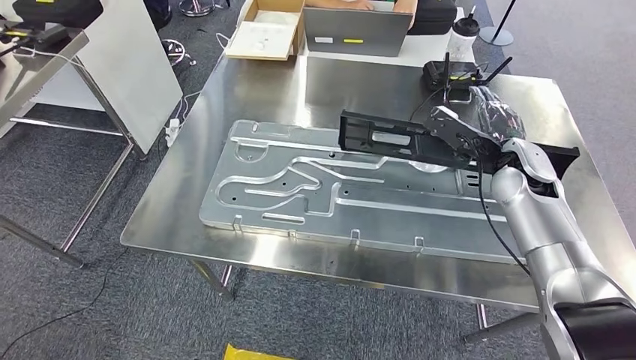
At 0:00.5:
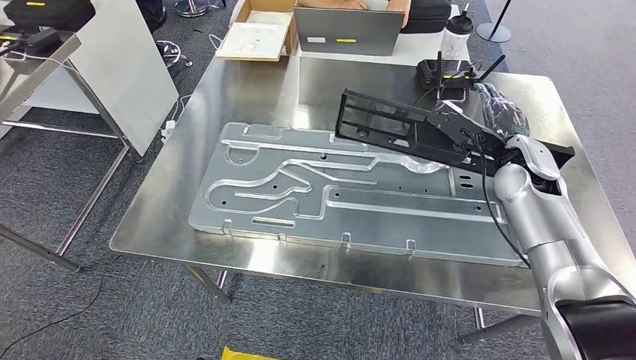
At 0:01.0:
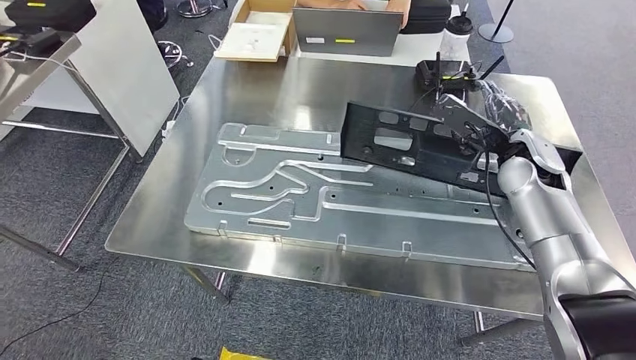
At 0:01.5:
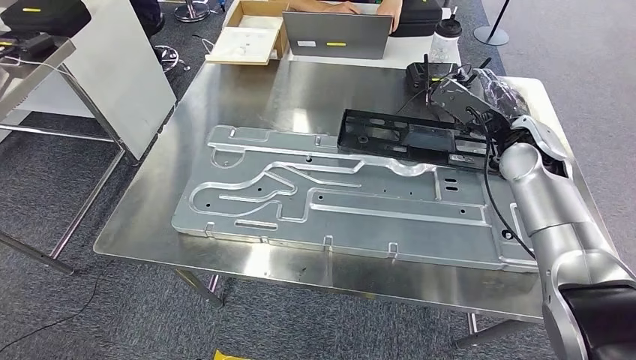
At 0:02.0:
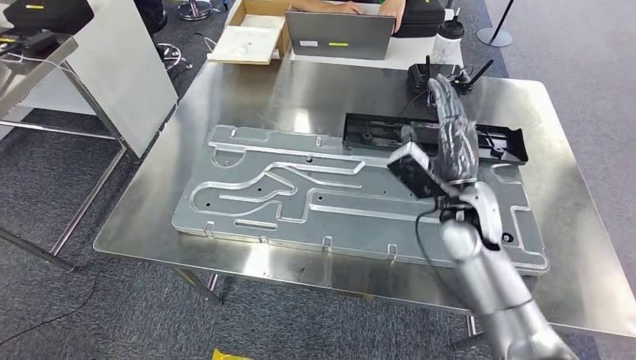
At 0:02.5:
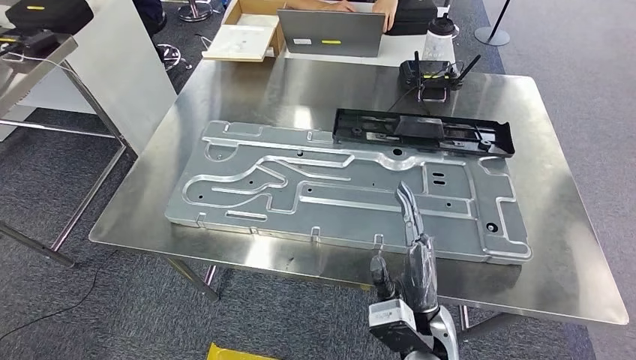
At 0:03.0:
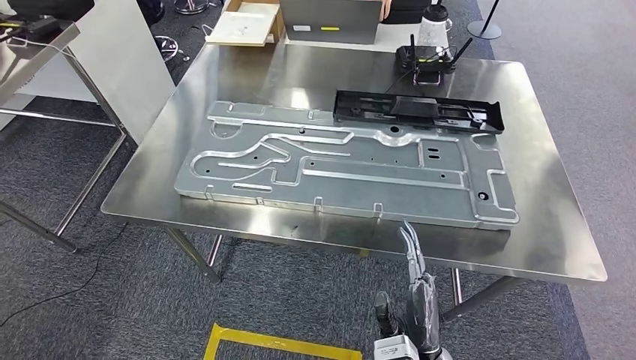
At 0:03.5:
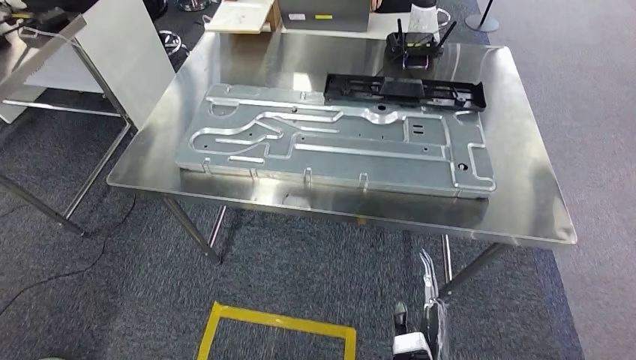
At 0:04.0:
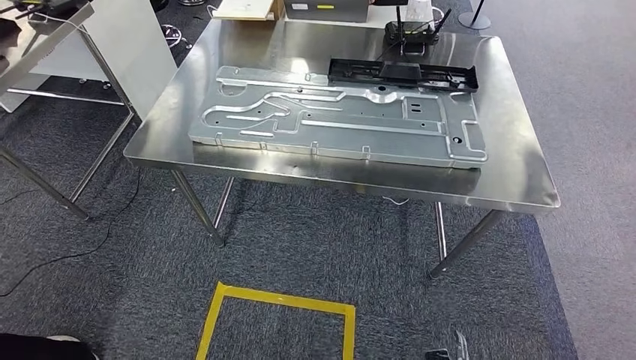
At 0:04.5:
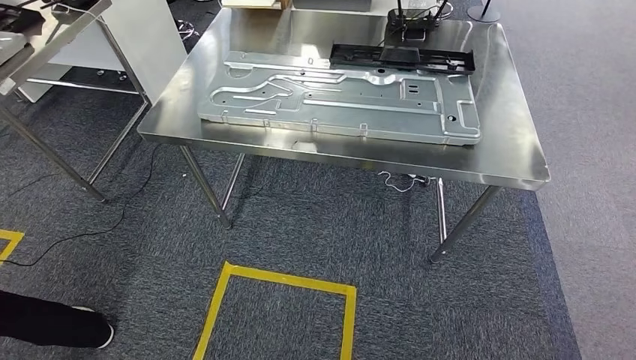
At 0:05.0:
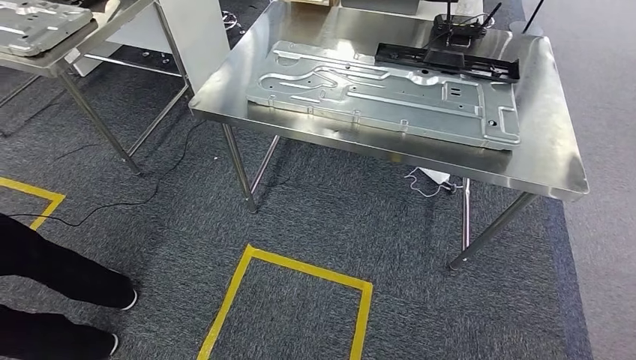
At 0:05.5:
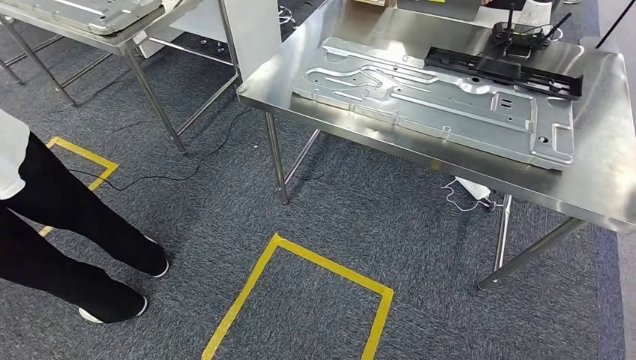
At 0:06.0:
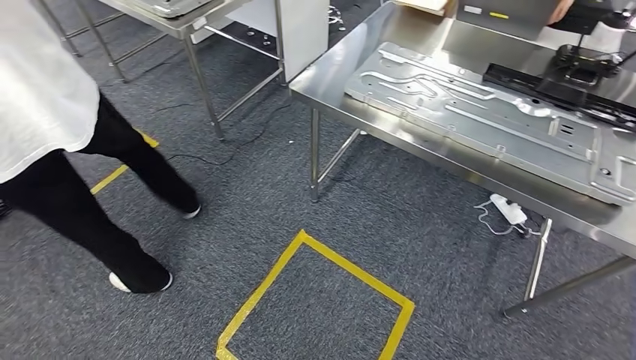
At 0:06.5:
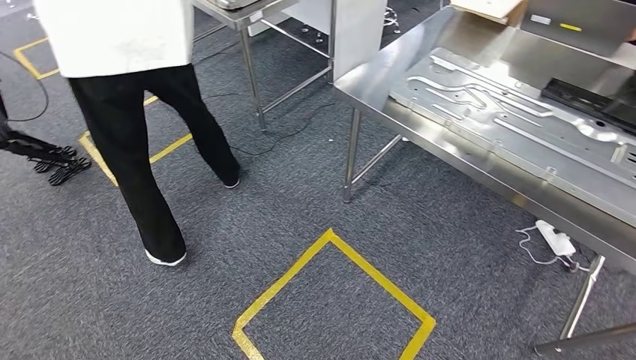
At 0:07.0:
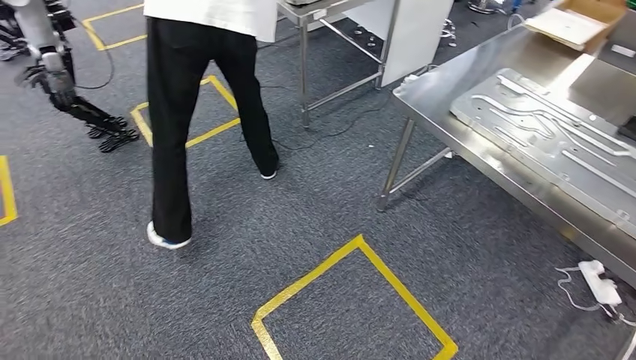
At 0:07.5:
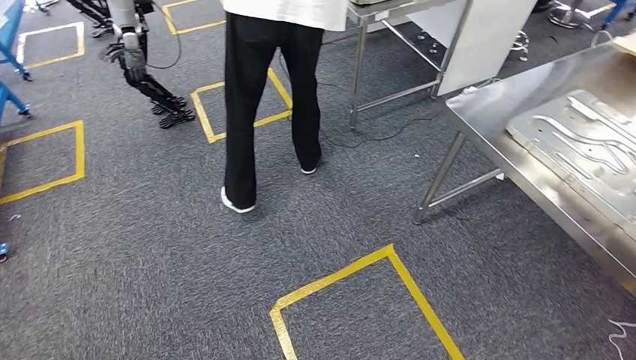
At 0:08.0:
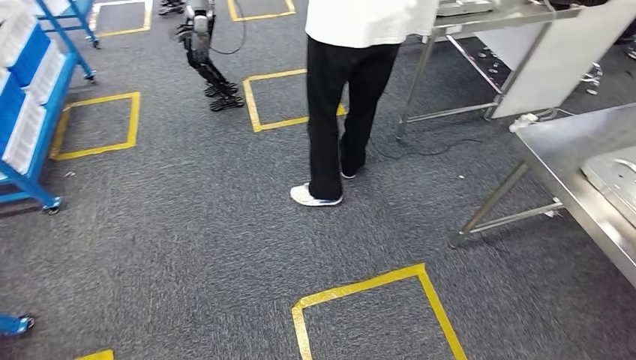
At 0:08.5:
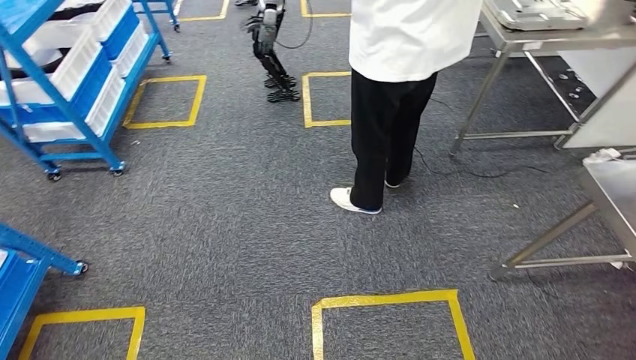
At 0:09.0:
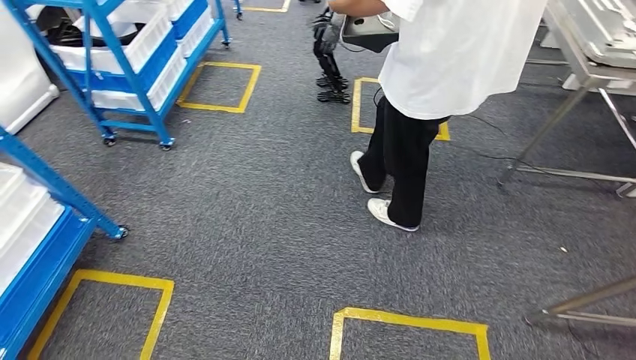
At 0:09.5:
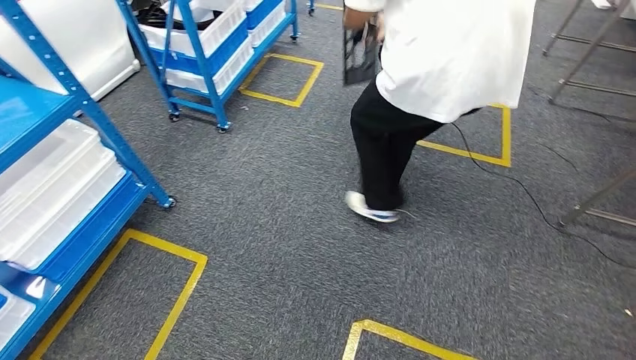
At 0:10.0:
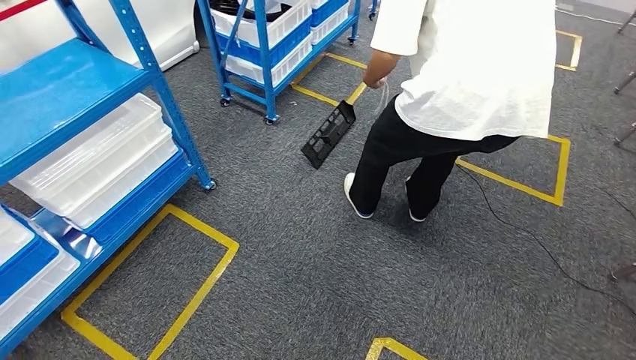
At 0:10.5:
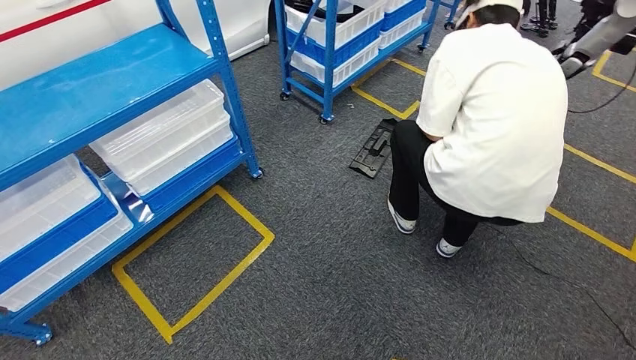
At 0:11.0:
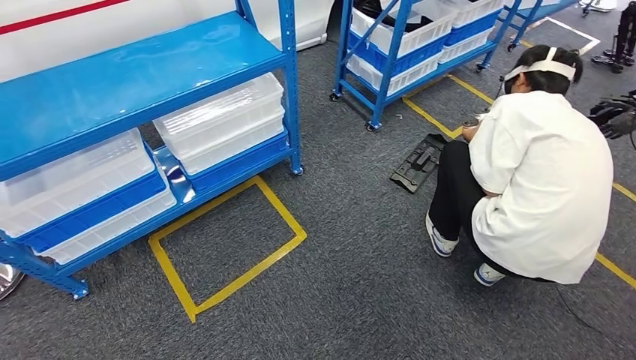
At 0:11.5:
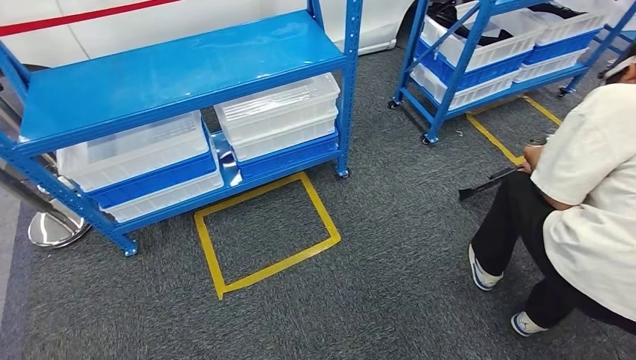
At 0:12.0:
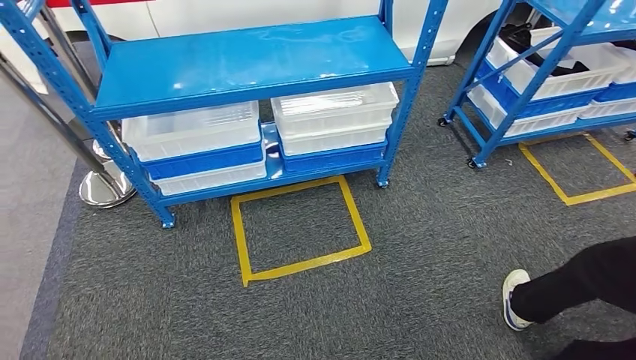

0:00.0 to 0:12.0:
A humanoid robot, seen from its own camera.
Step, 0:00.0 to 0:04.0: Insert the large material into the corresponding slot on the workbench.

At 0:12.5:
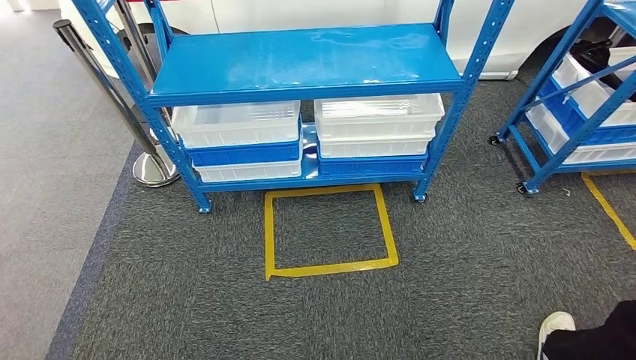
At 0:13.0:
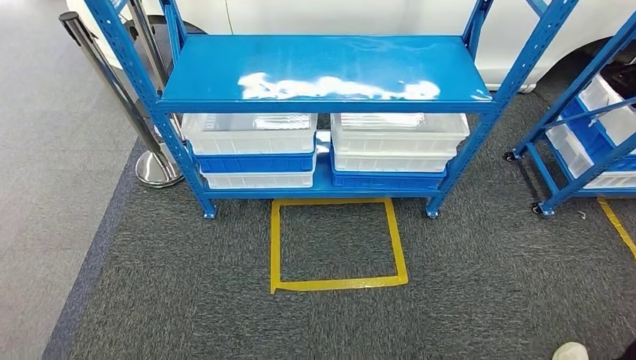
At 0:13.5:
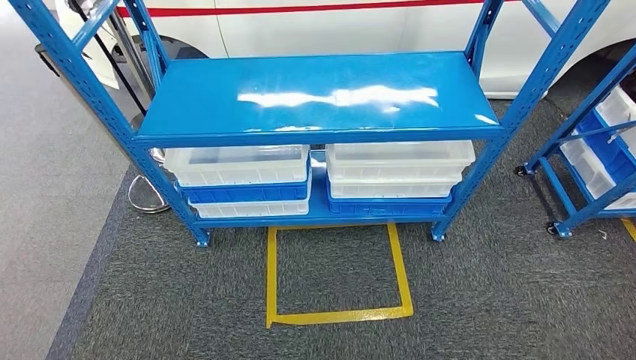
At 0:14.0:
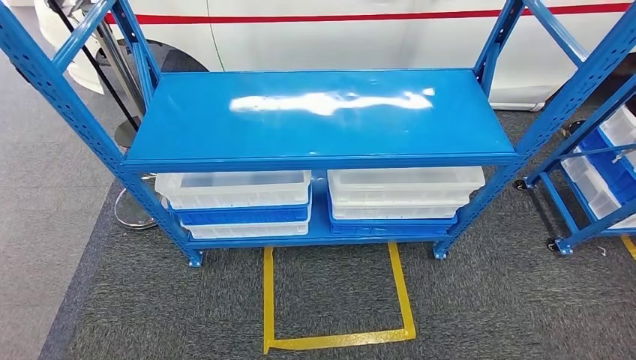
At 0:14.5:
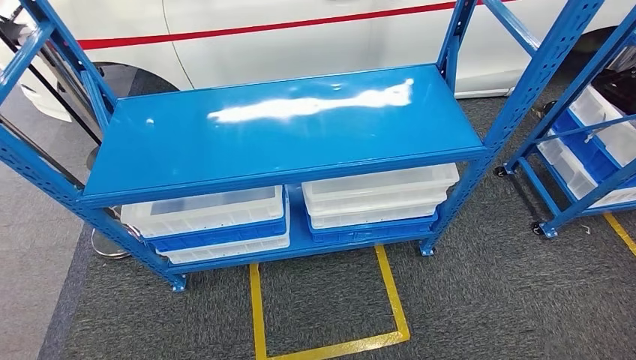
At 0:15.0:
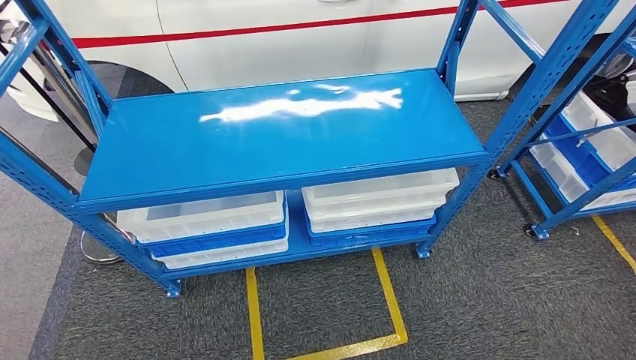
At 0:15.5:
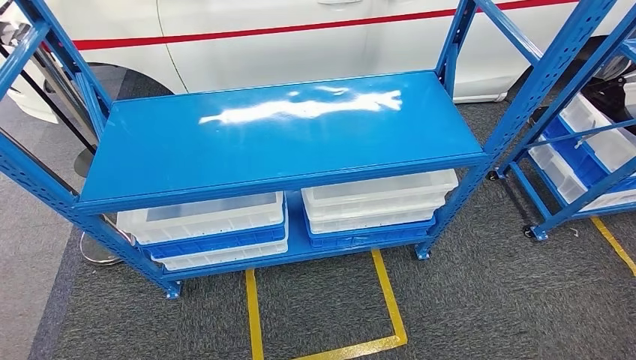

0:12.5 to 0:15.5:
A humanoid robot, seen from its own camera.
Step, 0:12.5 to 0:15.5: Move to the initial position of the shelf.

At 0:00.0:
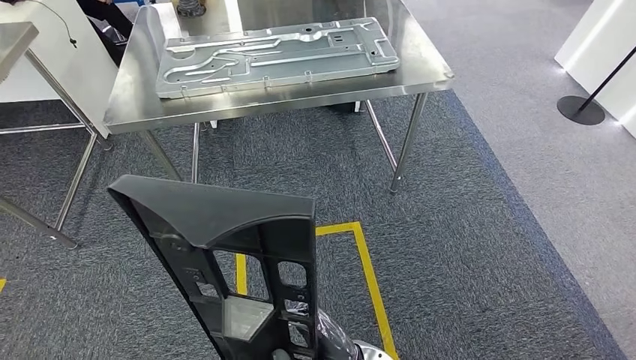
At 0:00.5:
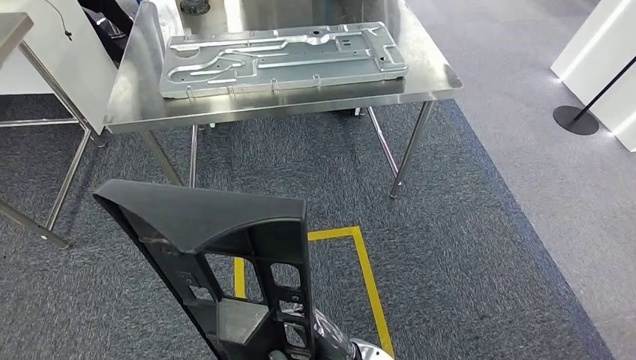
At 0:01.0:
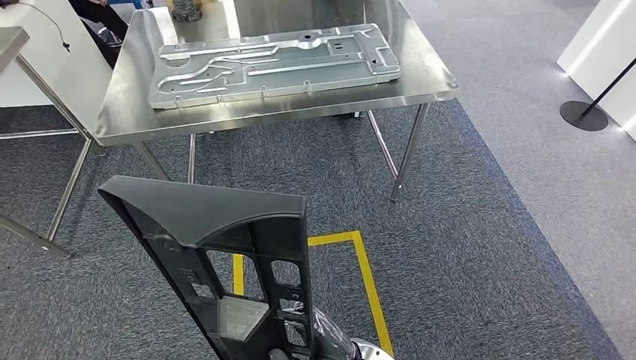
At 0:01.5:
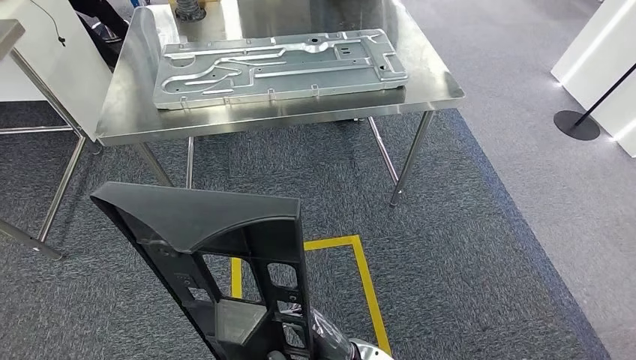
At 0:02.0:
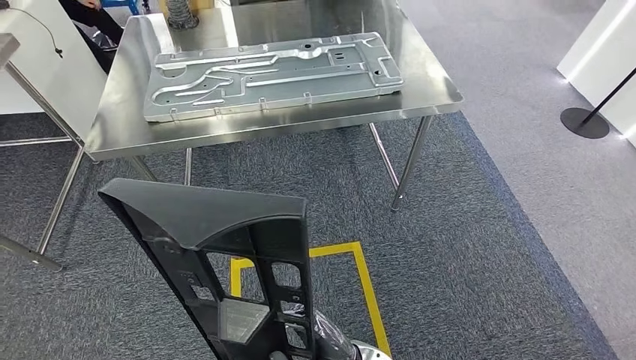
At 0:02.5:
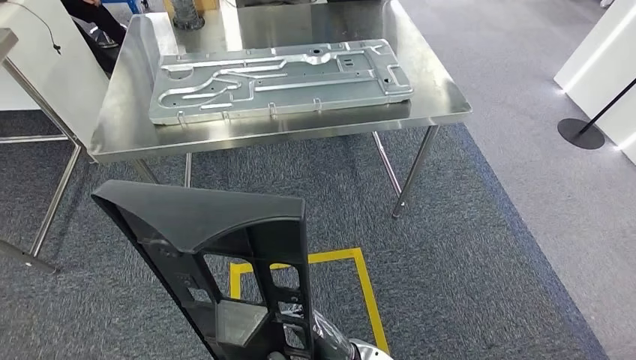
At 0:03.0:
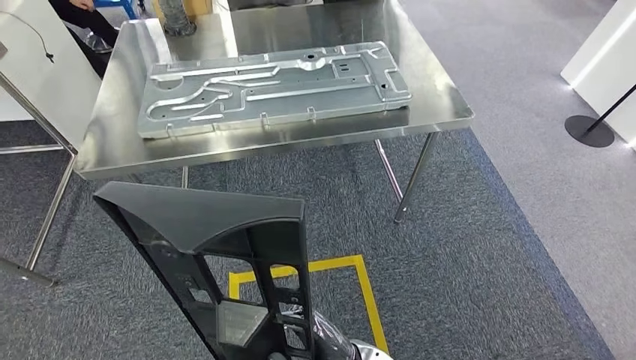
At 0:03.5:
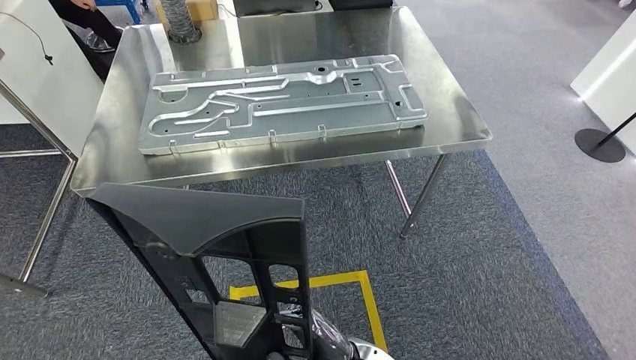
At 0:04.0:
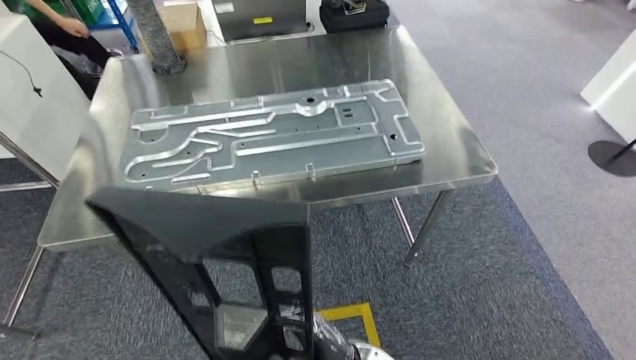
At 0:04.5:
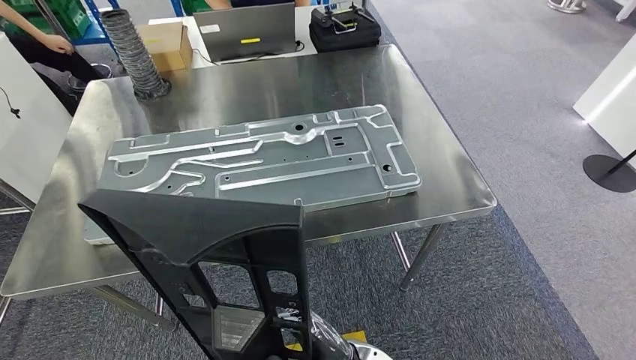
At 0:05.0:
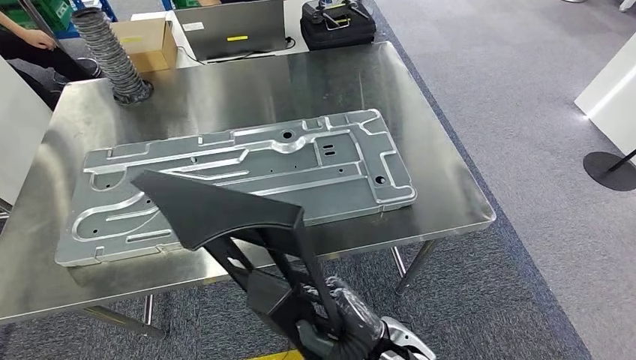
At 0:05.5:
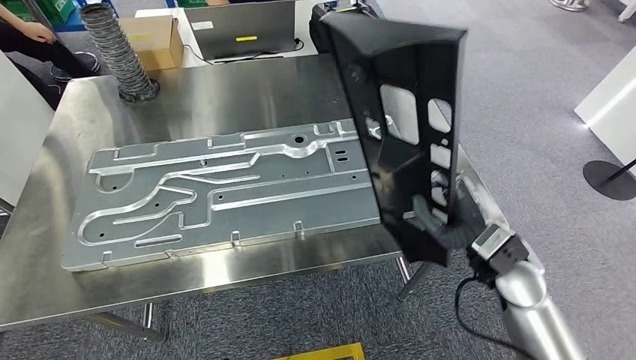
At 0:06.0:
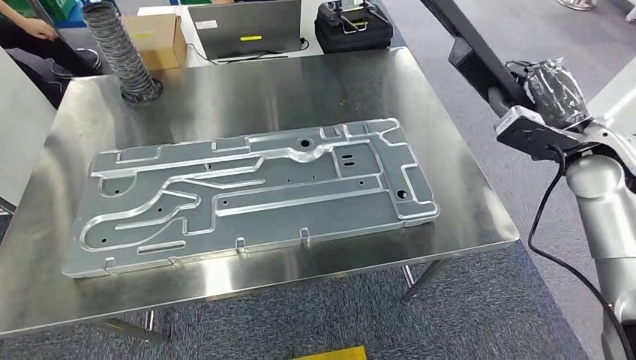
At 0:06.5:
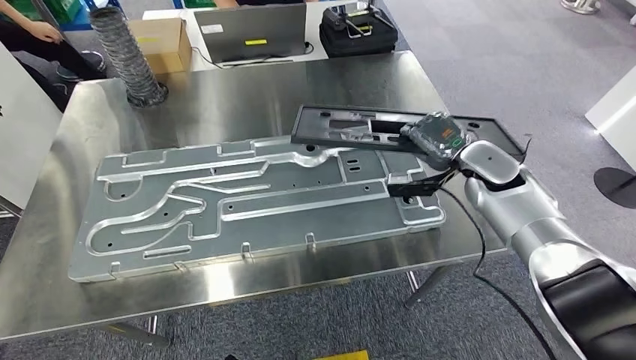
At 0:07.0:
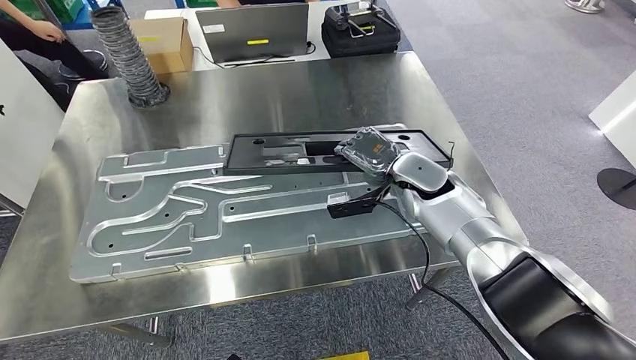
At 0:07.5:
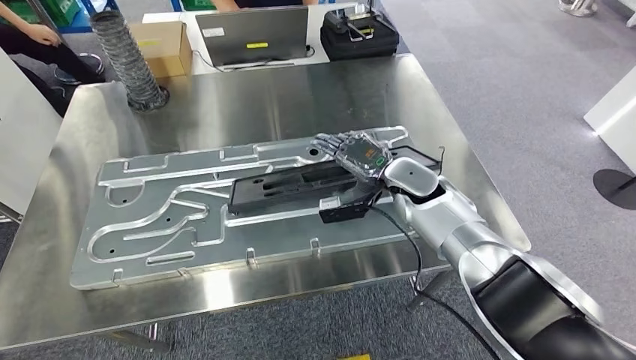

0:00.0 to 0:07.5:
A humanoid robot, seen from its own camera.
Step, 0:00.0 to 0:06.0: Move the large material to the workbench.
